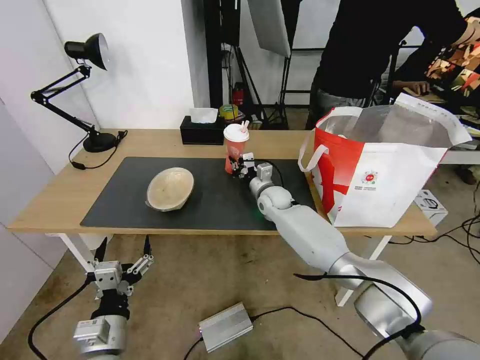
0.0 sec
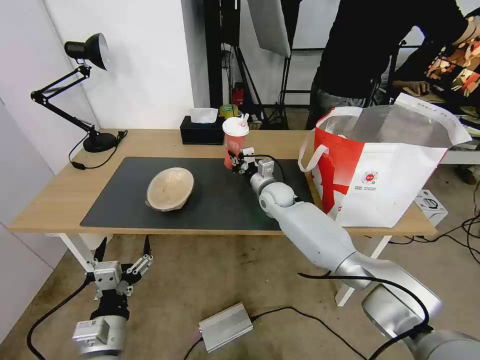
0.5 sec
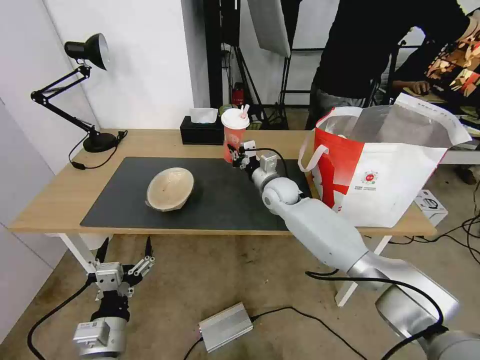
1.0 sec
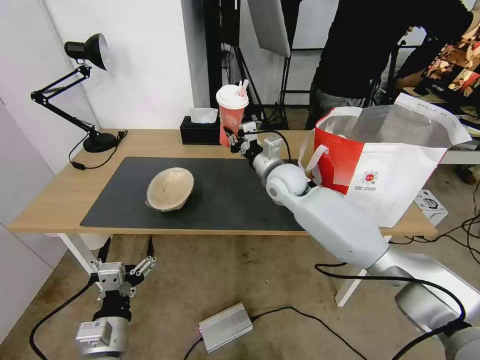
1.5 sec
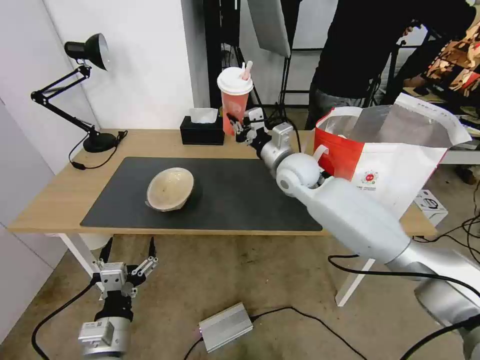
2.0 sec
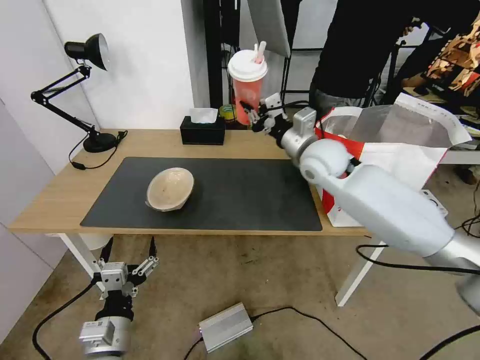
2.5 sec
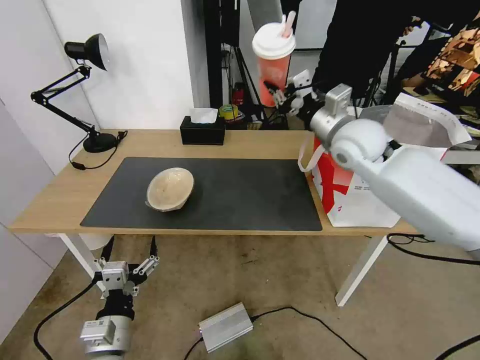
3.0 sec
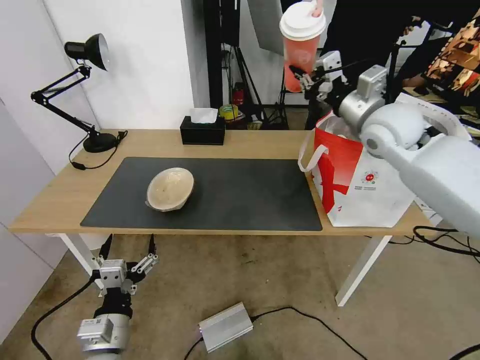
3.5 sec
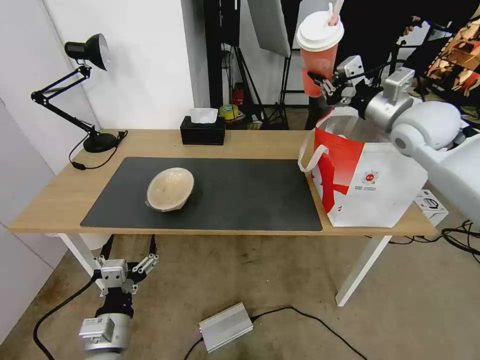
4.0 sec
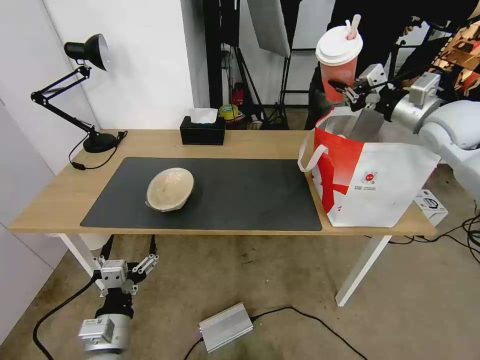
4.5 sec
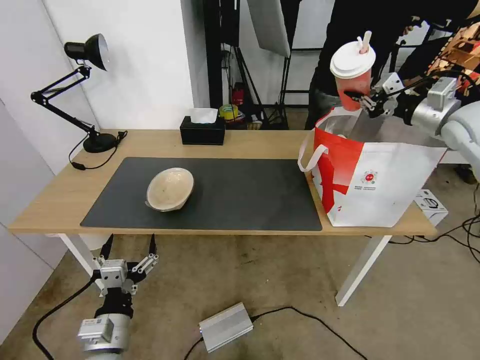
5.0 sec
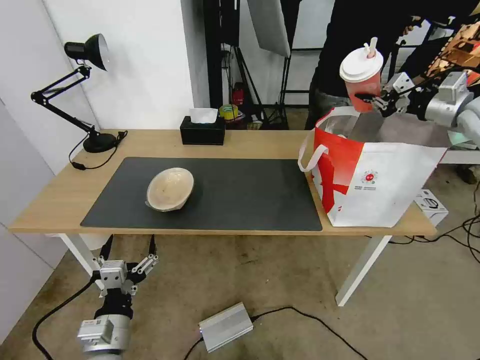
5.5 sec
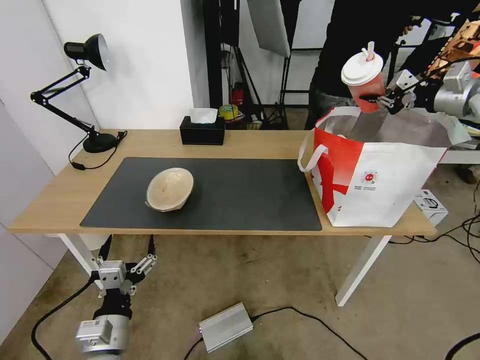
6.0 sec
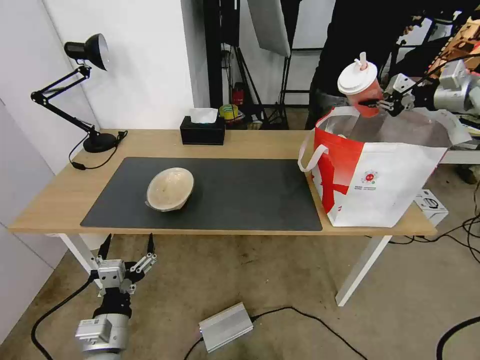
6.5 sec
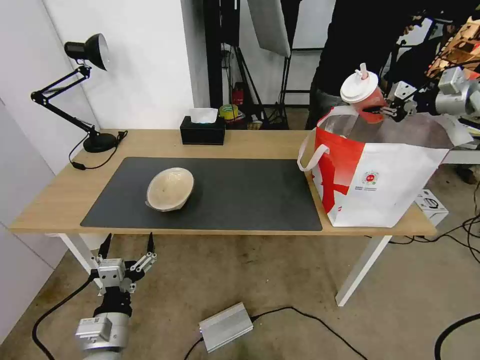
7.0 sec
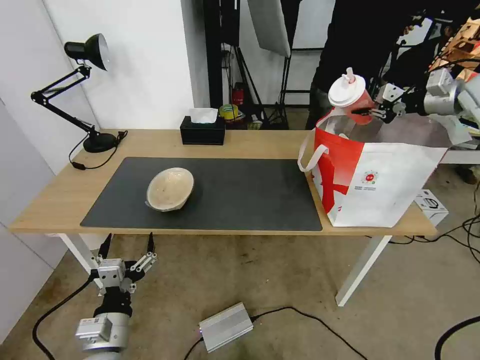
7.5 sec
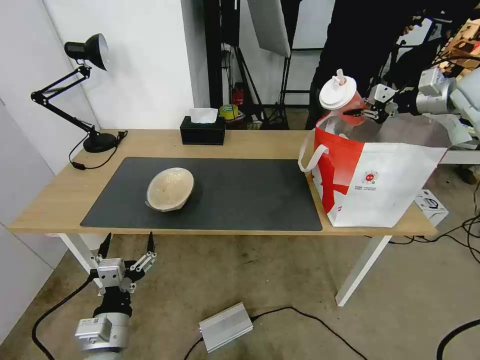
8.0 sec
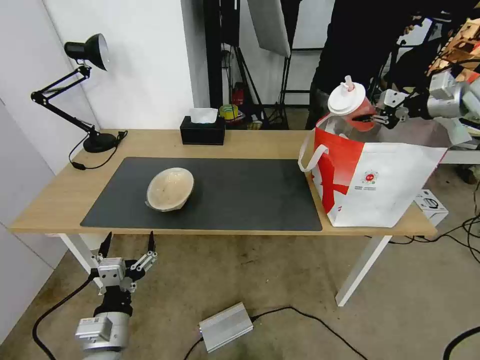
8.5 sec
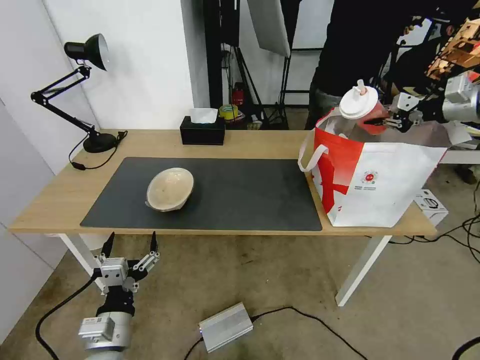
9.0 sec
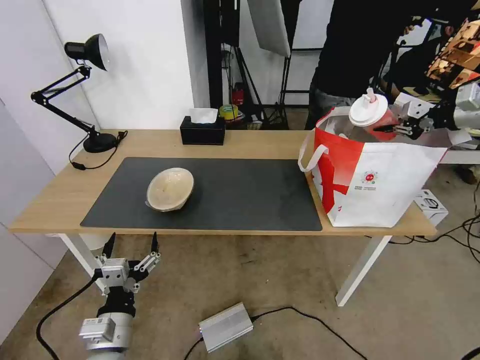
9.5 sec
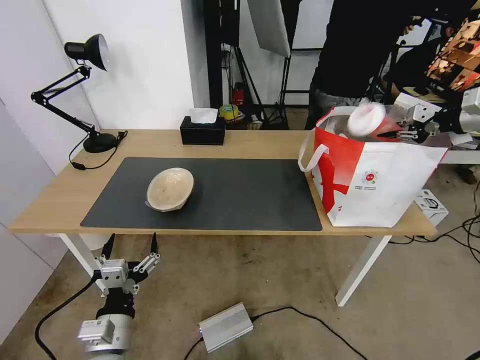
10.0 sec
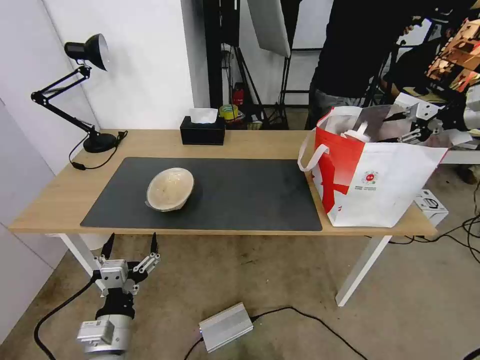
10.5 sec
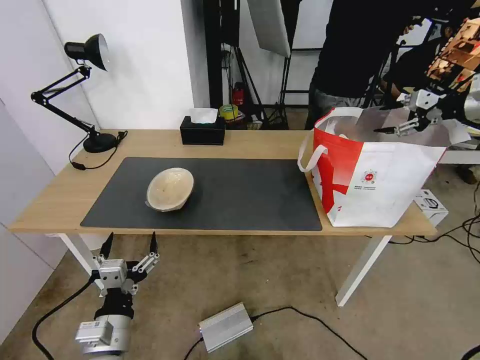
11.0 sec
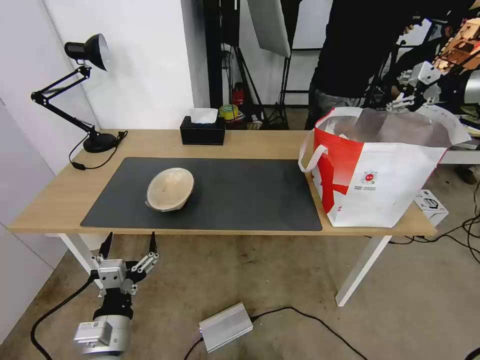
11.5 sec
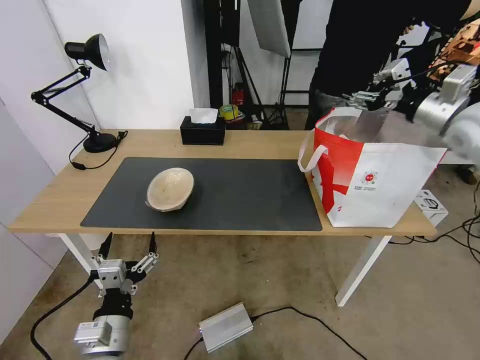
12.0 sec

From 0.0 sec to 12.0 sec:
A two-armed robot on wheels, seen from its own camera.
Task of the whole recording: Pick up the trash from the table and place it into the takeout bag.
From 0.0 sec to 2.0 sec: The right gripper goes about 15 cm upward.
From 2.0 sec to 4.0 sec: The right gripper moves to the right and upward, roughly 25 cm.
From 4.0 sec to 6.0 sec: The right gripper is displaced to the right by roughly 20 cm.
From 6.0 sec to 8.0 sec: The grippers stay close to where they were, moving slightly.
From 8.0 sec to 10.0 sec: The right gripper travels to the right by roughly 10 cm.
From 10.0 sec to 12.0 sec: The right gripper shifts some 15 cm to the left and backward, and opens.

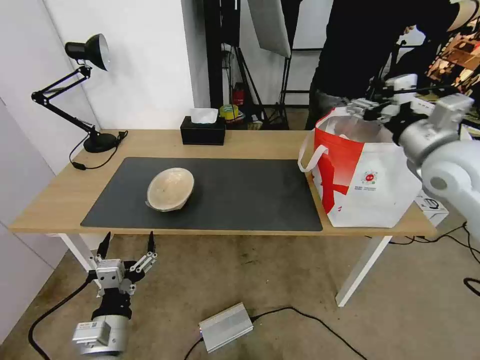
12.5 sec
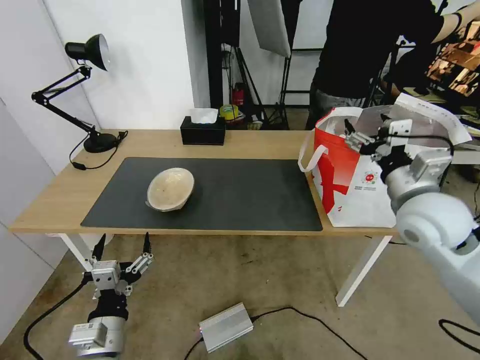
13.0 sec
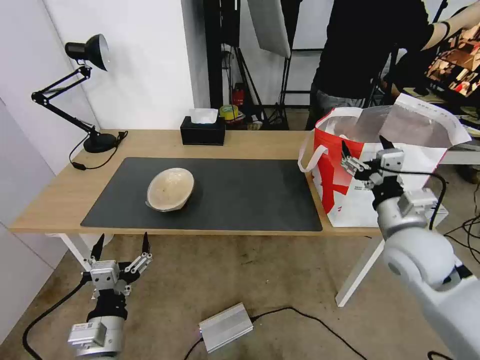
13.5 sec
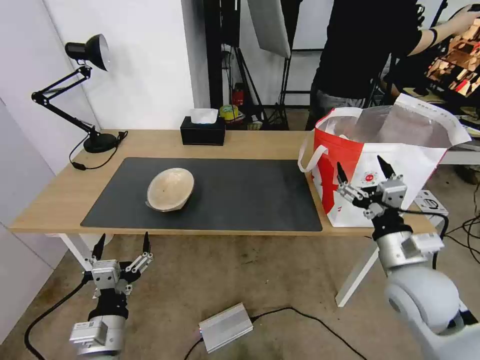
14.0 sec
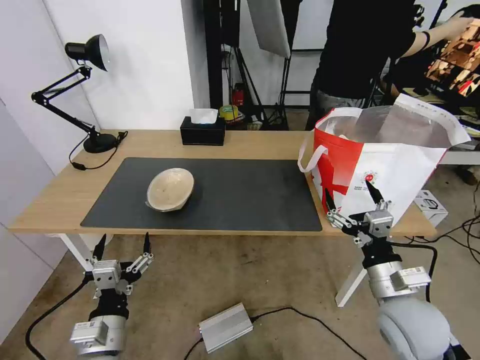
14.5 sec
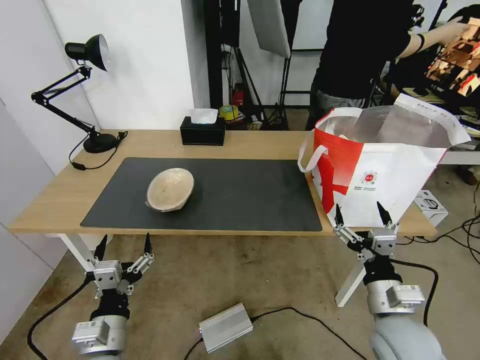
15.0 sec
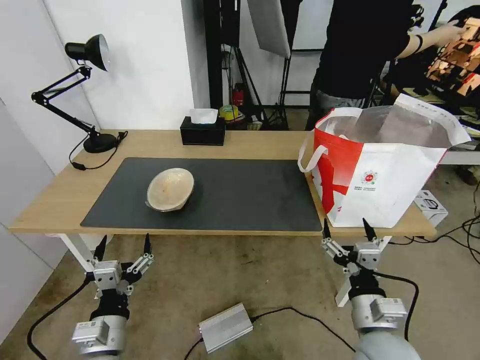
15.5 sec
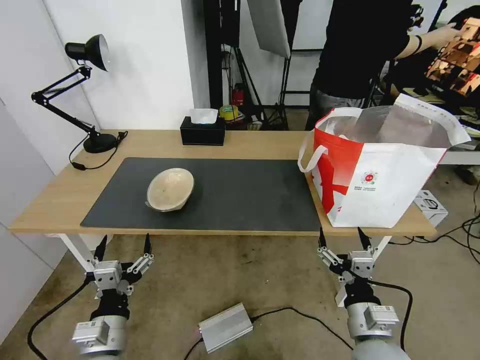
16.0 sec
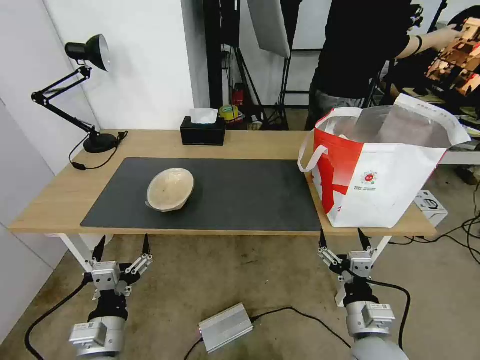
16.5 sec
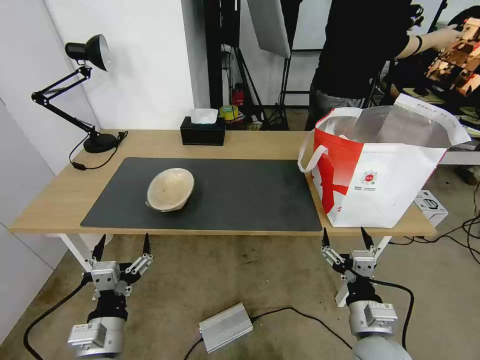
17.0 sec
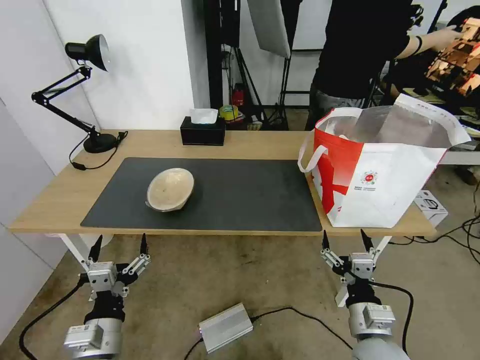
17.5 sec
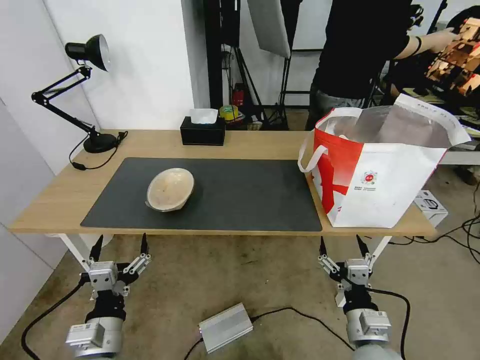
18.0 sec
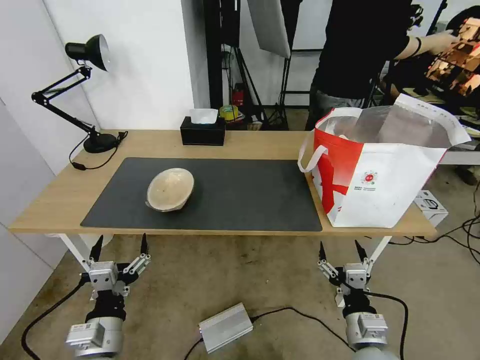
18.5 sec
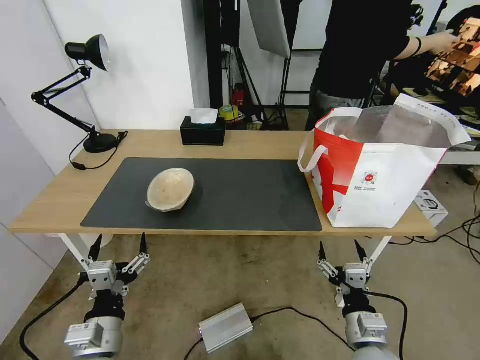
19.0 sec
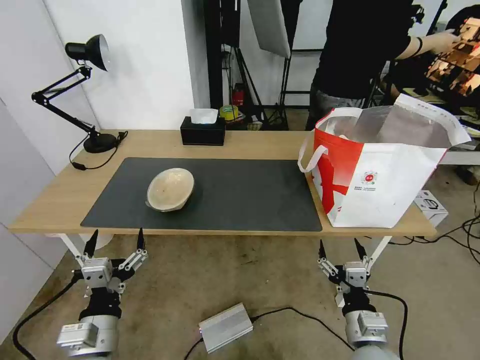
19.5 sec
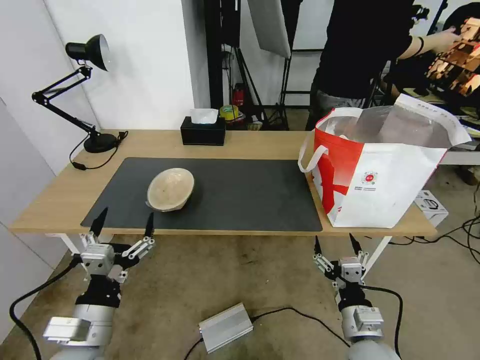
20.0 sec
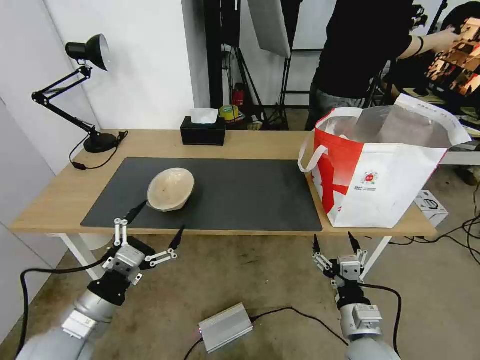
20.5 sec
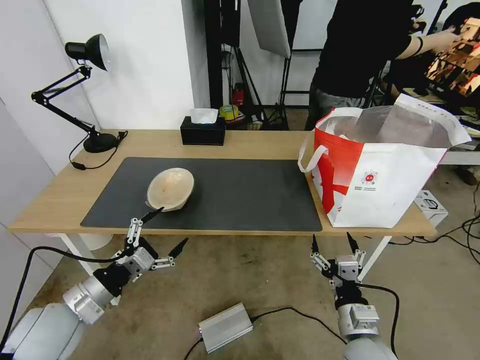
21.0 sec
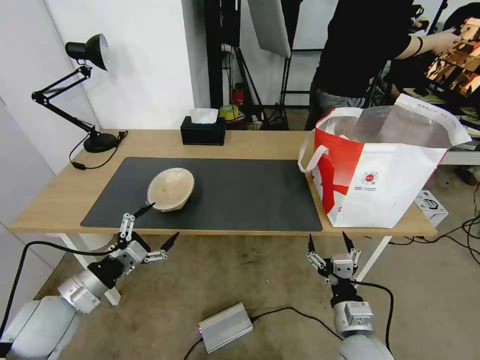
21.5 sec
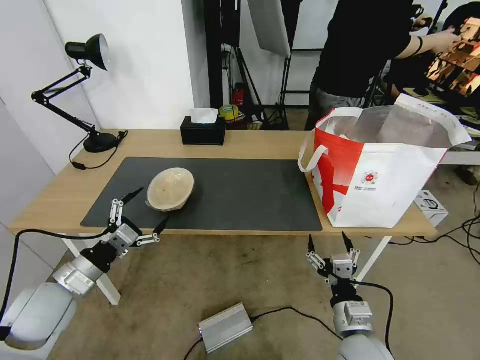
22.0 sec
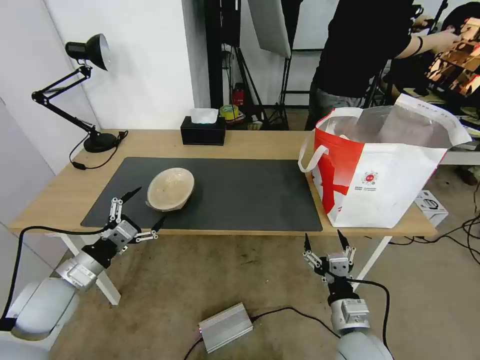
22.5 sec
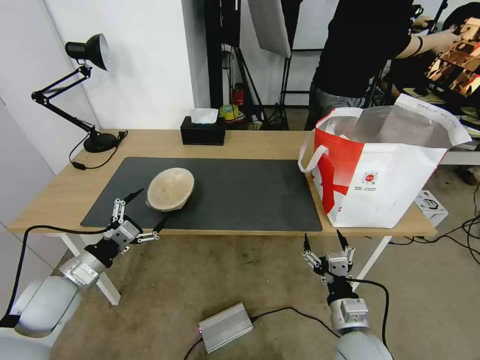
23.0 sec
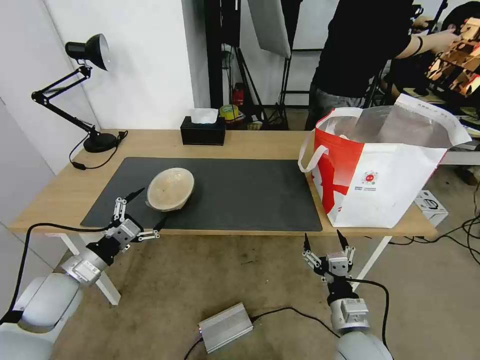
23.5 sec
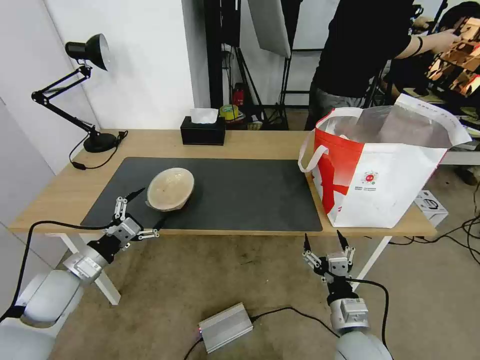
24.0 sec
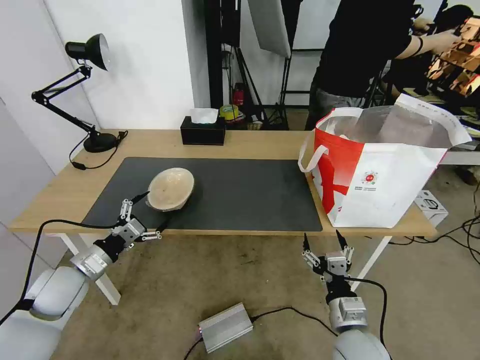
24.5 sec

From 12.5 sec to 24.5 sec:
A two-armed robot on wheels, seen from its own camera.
Task of the whole recording: Pick up the trash from the table and place it into the takeout bag.
From 12.5 sec to 14.5 sec: The right gripper travels downward and backward by approximately 25 cm.
From 14.5 sec to 16.5 sec: The right gripper goes roughly 10 cm downward and backward.
From 16.5 sec to 18.5 sec: The grippers make only small movements.
From 18.5 sec to 20.5 sec: The left gripper ends up about 10 cm from where it was.
From 20.5 sec to 22.5 sec: The left gripper shifts roughly 10 cm forward and to the left.
From 22.5 sec to 24.5 sec: There are only small adjustments of the grippers.

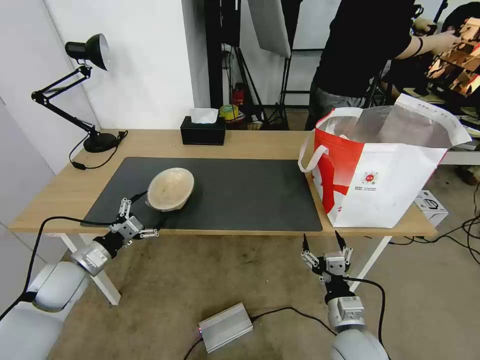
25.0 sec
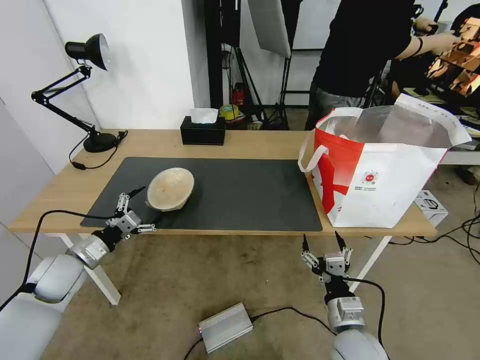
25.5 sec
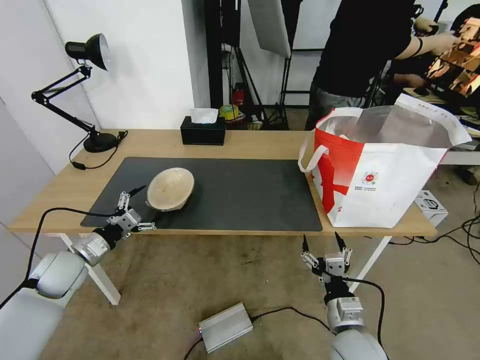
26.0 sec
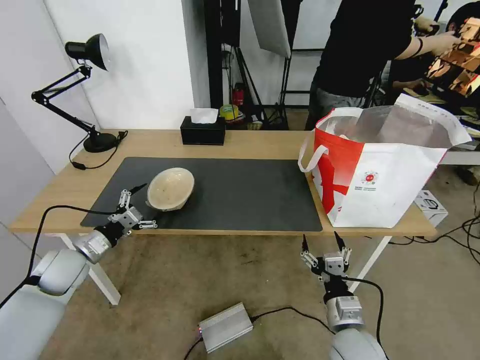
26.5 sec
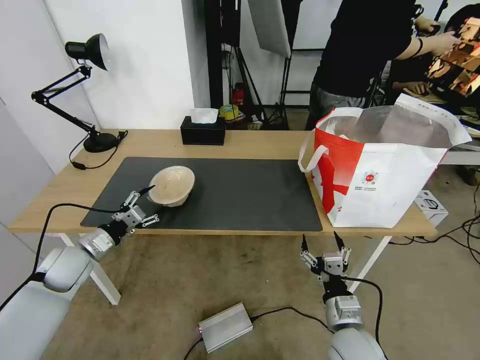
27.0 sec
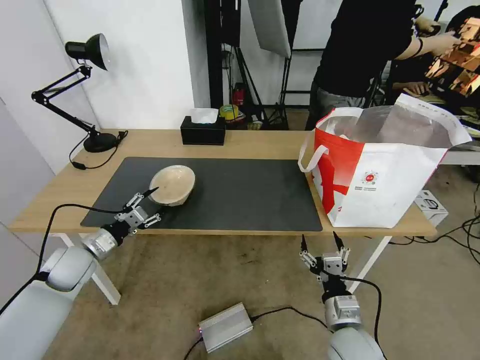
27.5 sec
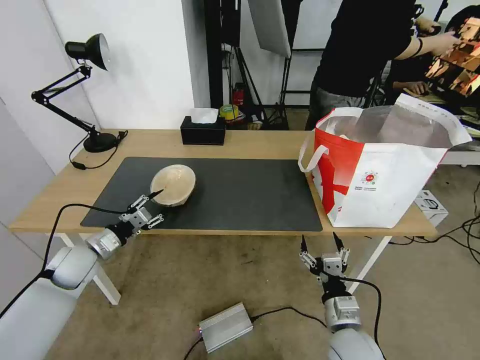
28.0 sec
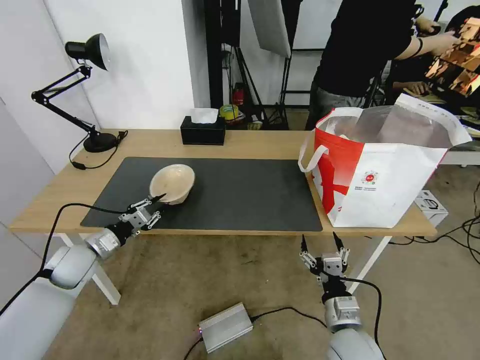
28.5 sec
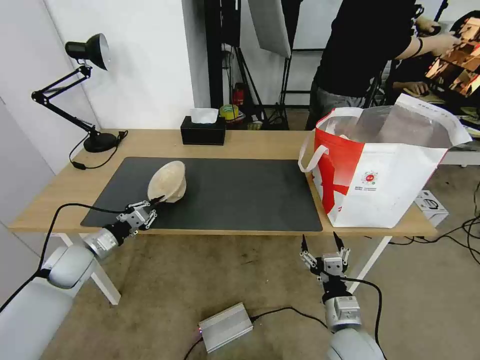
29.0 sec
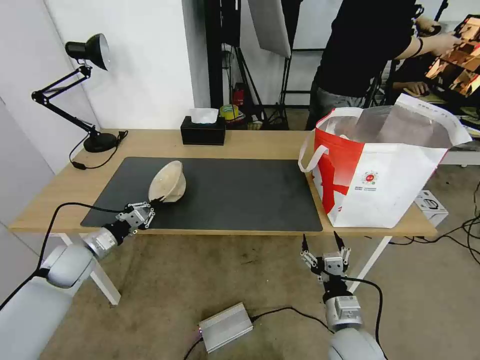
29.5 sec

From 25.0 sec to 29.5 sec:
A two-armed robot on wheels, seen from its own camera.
Task of the whole recording: Pick up the trash from the table and place it into the takeout bag.
From 25.0 sec to 27.0 sec: The left gripper closes.
From 27.0 sec to 29.5 sec: The left gripper closes its fingers.
